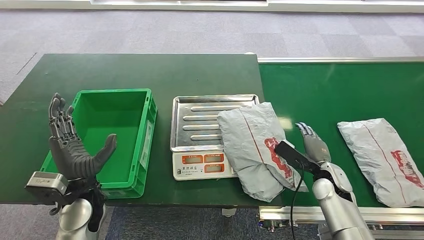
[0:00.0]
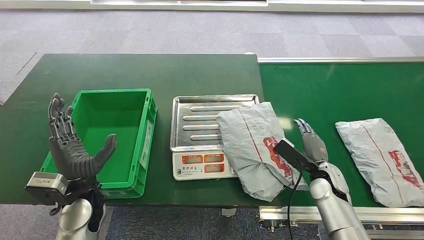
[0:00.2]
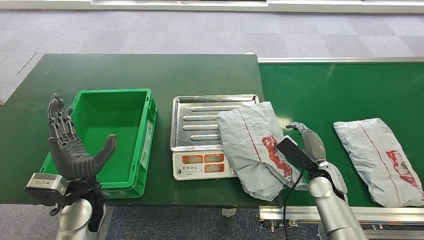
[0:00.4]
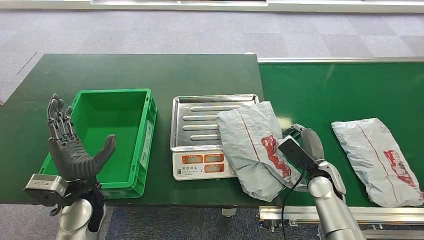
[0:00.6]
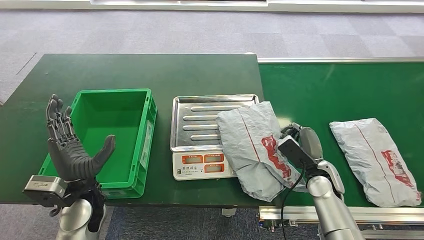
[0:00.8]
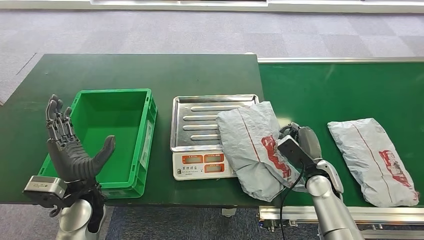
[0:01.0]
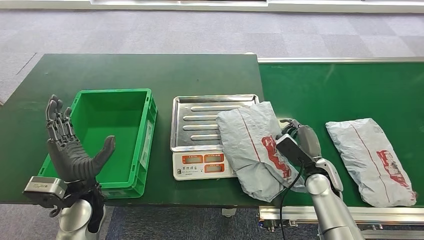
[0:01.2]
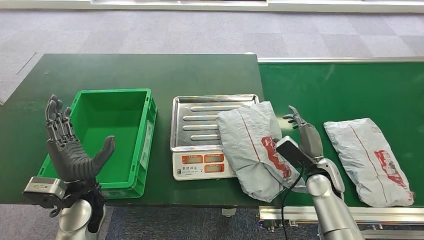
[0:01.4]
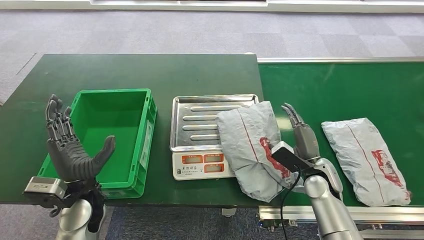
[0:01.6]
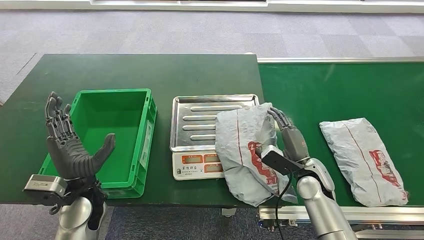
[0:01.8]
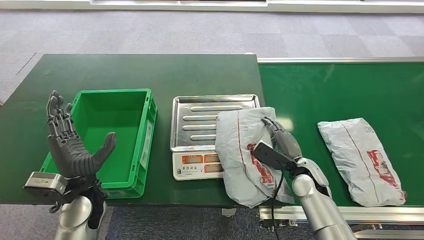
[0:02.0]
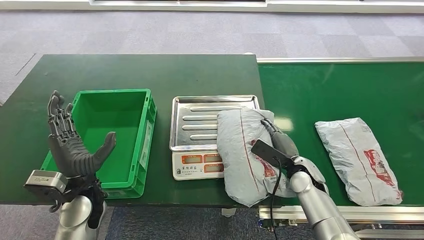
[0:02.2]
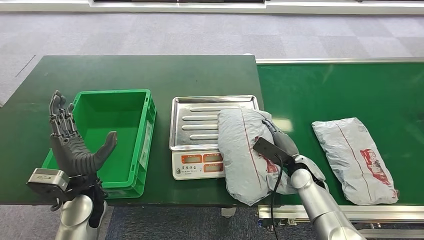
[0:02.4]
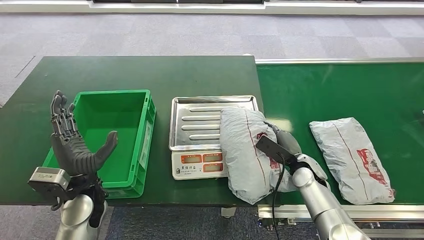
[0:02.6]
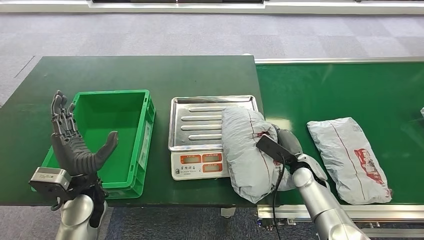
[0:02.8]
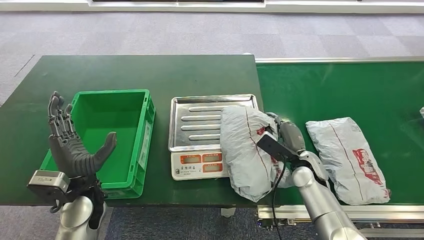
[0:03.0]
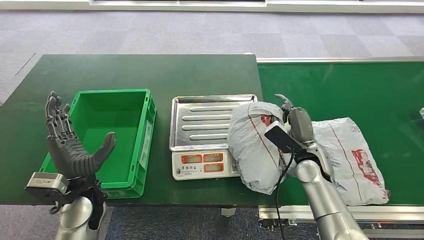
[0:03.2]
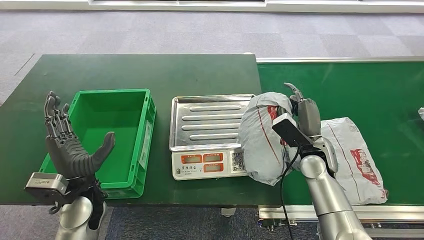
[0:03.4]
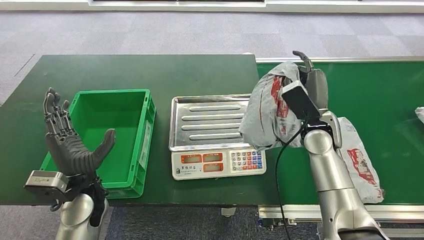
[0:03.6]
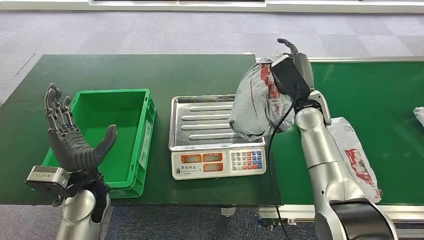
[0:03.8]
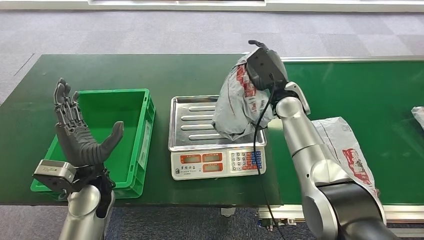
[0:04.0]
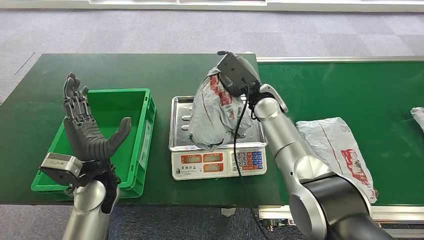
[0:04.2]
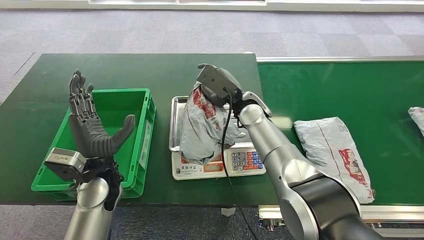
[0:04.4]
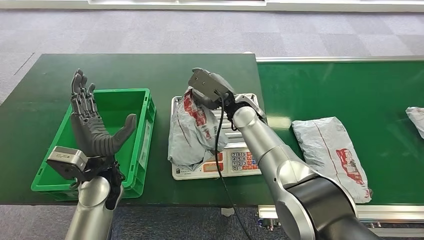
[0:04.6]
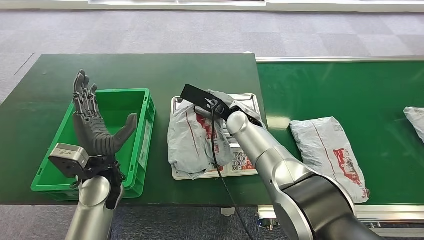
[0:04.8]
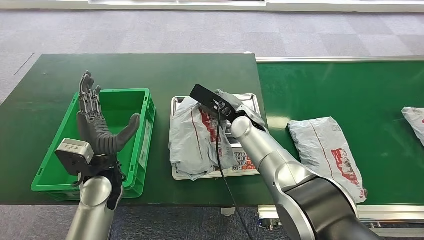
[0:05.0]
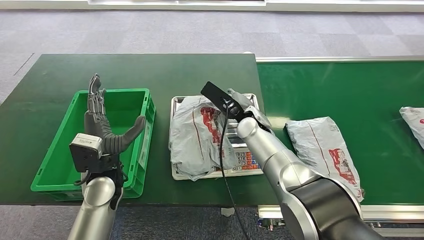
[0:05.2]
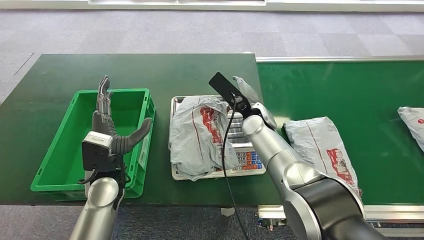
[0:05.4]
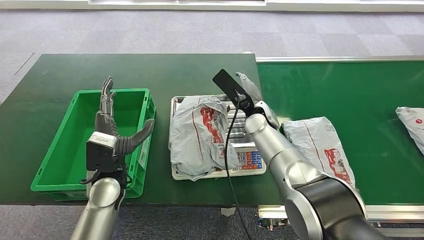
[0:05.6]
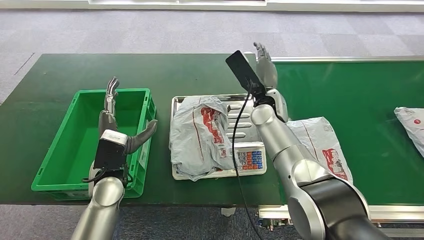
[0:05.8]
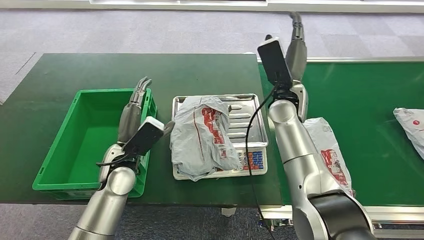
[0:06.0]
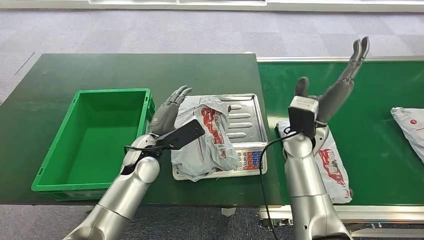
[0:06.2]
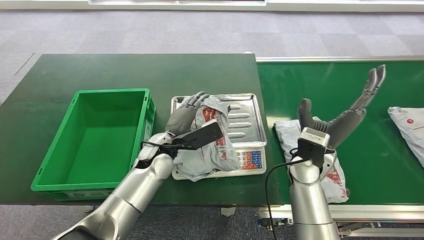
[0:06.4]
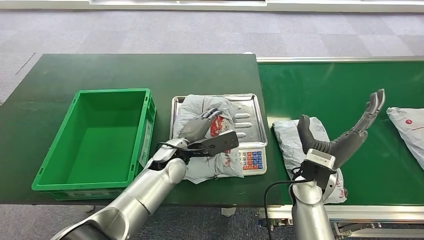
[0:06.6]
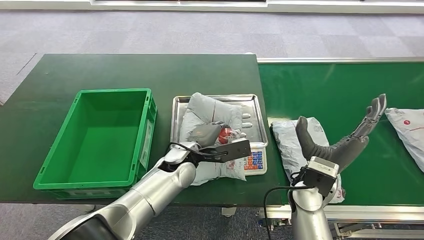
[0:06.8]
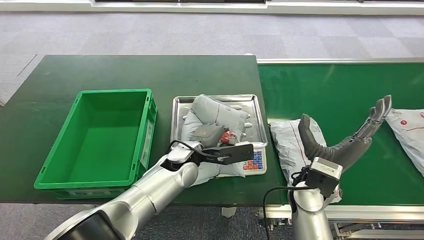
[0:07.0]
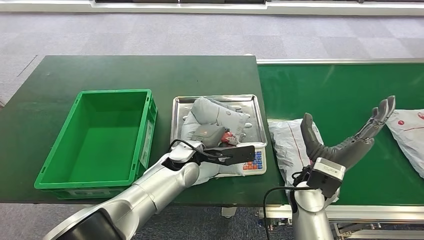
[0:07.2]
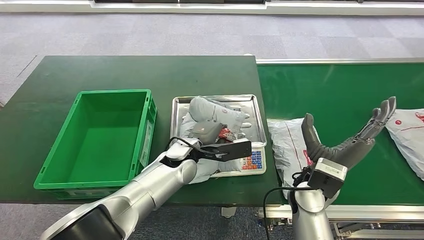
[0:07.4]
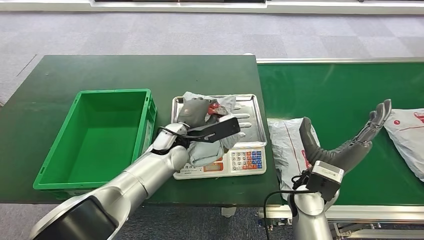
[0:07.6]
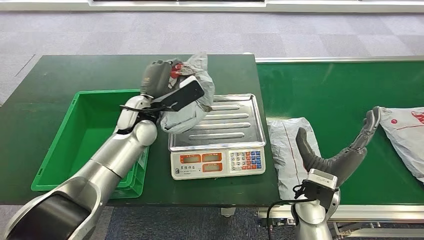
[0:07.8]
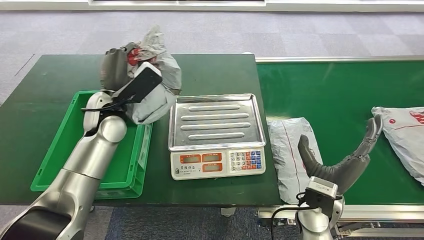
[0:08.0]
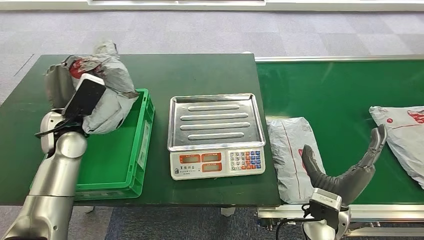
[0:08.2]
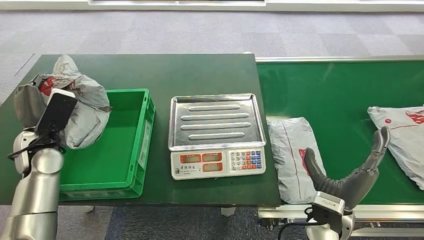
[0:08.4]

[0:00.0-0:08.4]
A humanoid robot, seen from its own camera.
Step, 0:00.0 to 0:08.2: Pick up the package from the inbound machine.
